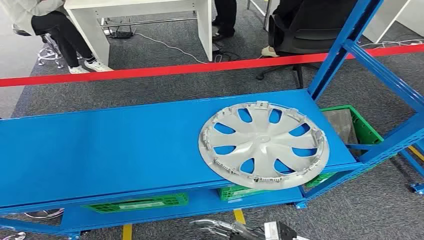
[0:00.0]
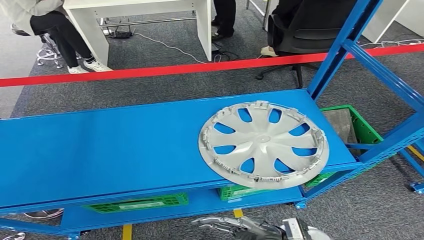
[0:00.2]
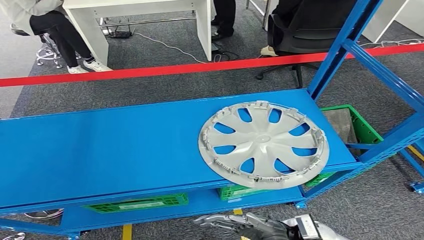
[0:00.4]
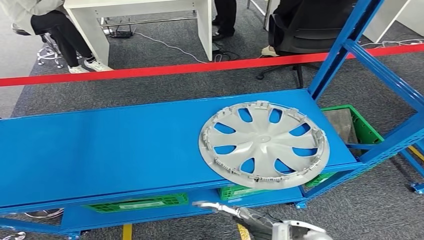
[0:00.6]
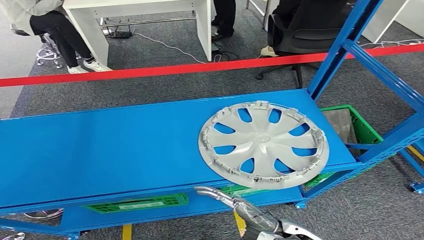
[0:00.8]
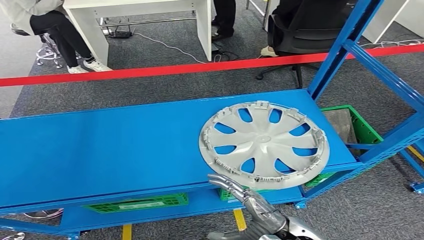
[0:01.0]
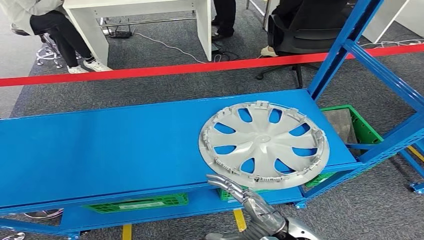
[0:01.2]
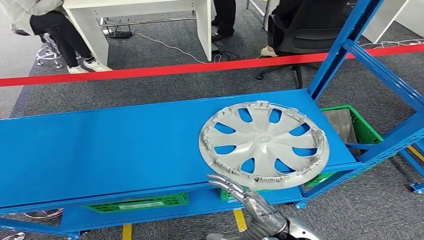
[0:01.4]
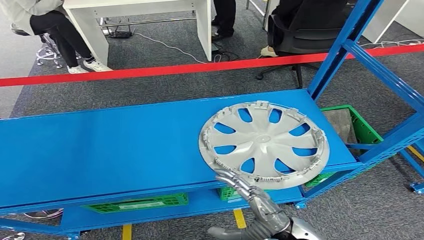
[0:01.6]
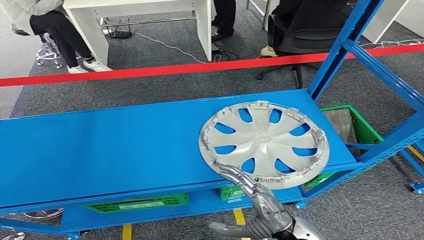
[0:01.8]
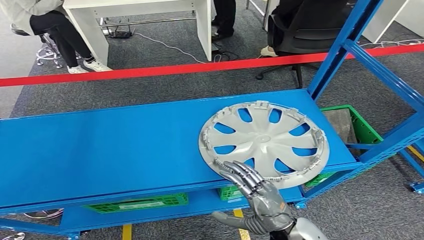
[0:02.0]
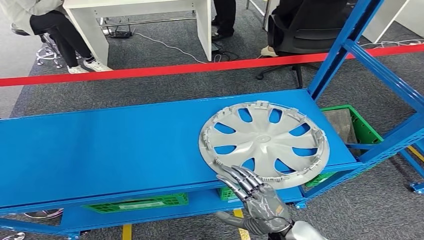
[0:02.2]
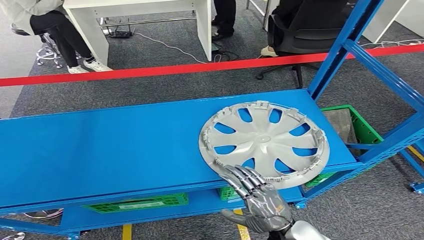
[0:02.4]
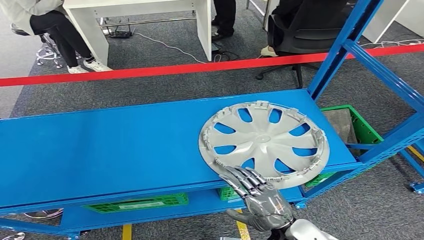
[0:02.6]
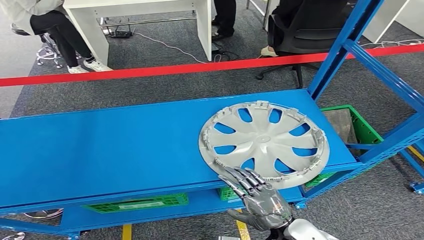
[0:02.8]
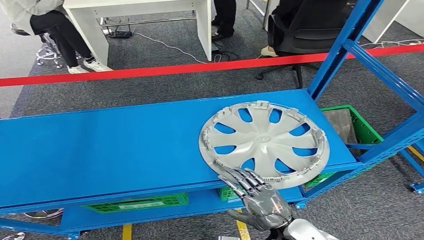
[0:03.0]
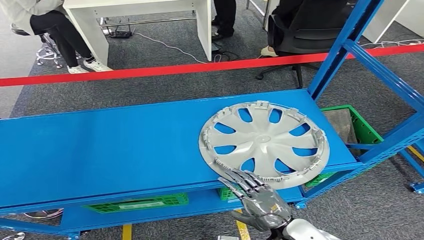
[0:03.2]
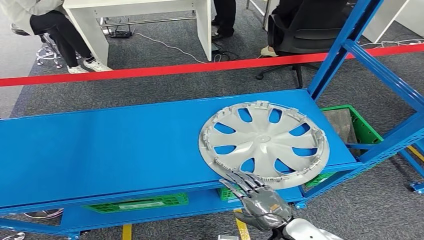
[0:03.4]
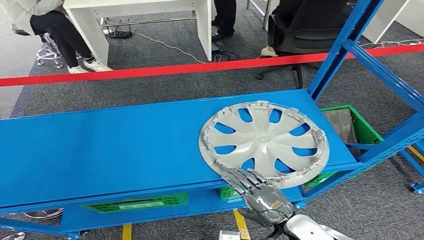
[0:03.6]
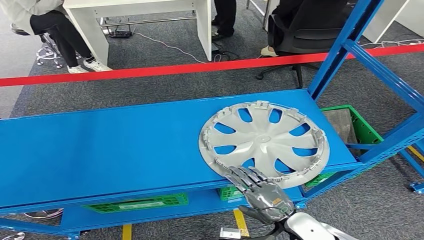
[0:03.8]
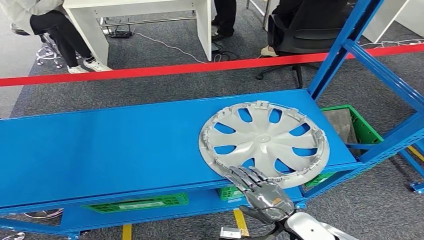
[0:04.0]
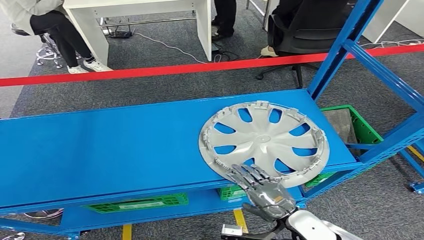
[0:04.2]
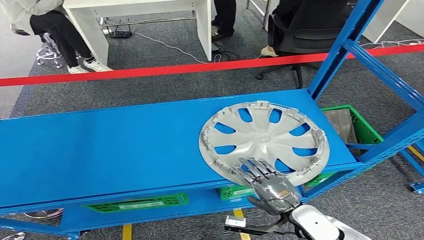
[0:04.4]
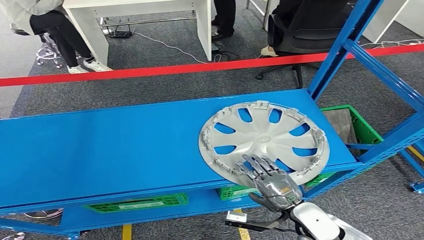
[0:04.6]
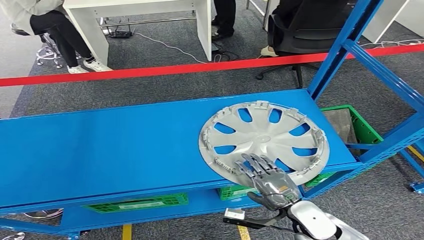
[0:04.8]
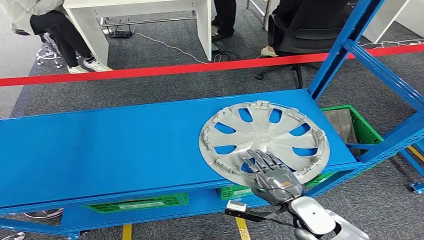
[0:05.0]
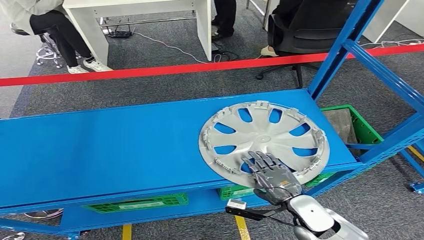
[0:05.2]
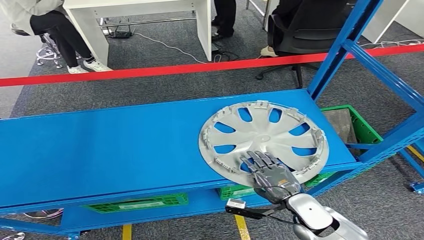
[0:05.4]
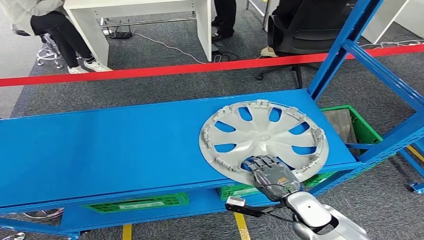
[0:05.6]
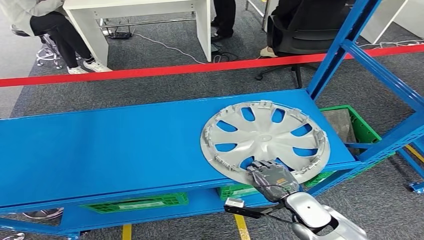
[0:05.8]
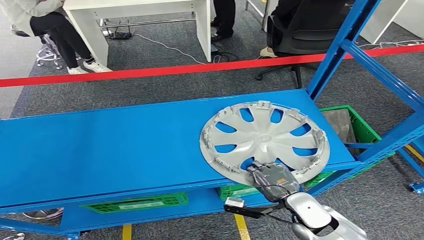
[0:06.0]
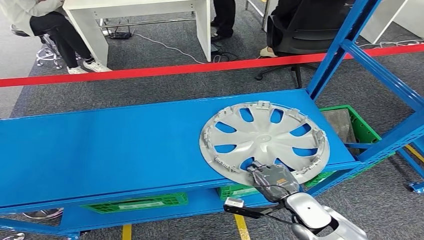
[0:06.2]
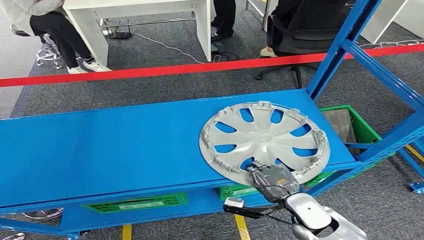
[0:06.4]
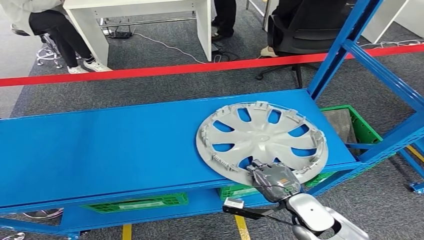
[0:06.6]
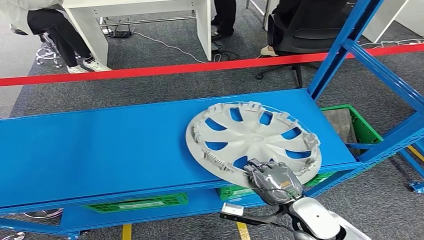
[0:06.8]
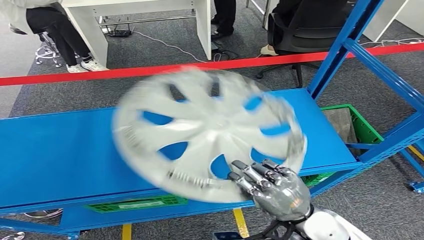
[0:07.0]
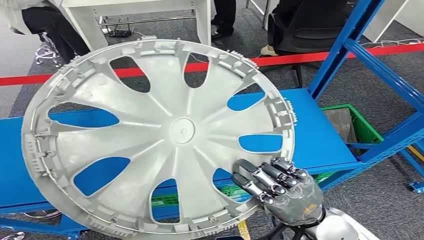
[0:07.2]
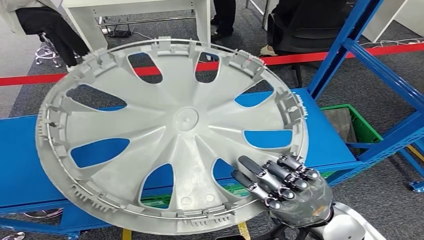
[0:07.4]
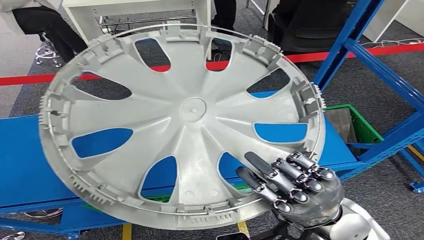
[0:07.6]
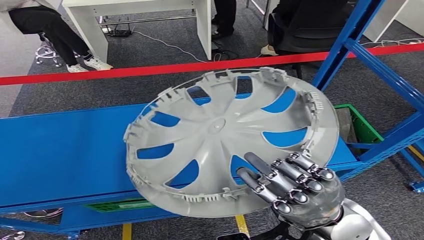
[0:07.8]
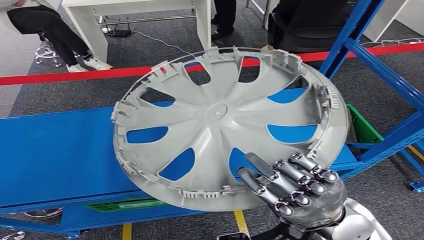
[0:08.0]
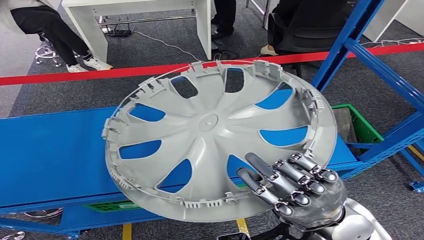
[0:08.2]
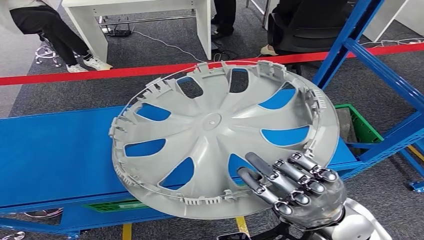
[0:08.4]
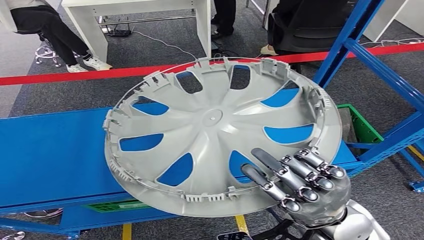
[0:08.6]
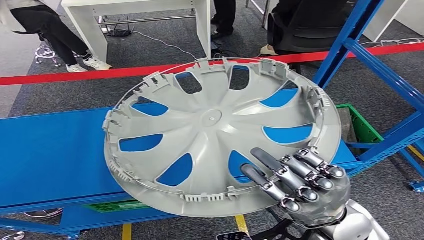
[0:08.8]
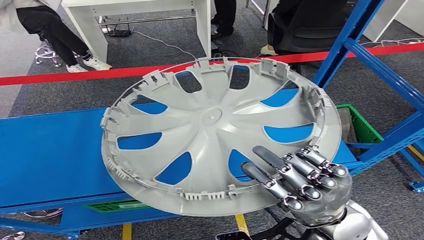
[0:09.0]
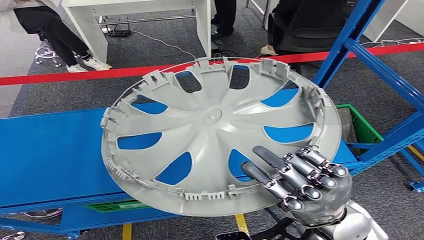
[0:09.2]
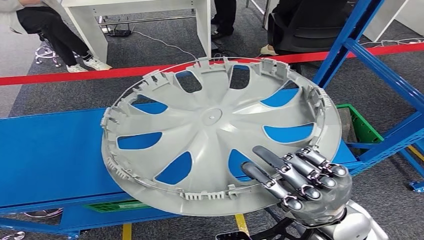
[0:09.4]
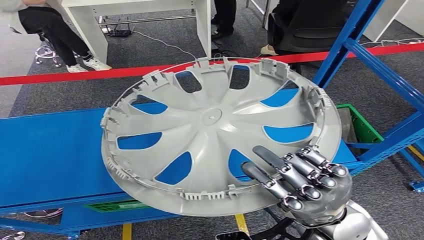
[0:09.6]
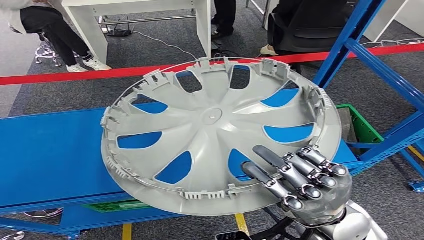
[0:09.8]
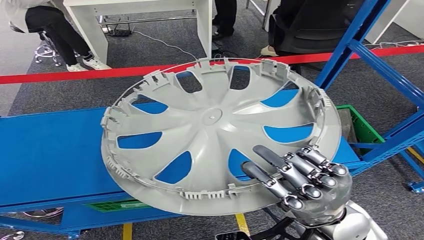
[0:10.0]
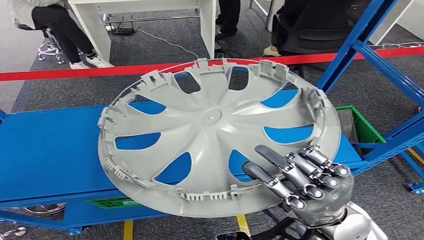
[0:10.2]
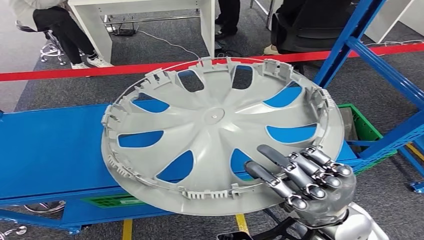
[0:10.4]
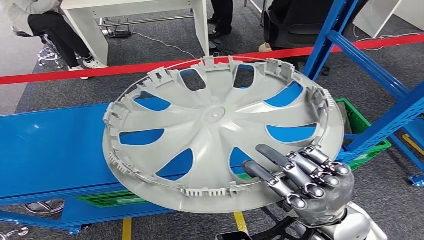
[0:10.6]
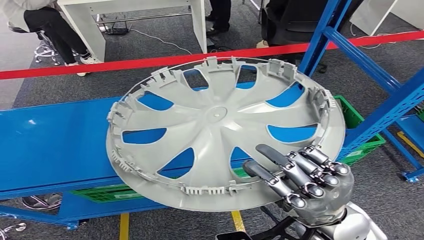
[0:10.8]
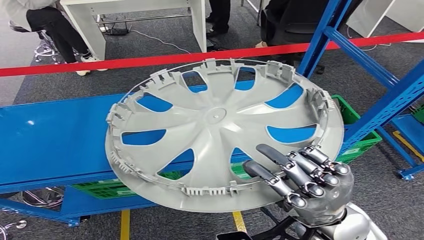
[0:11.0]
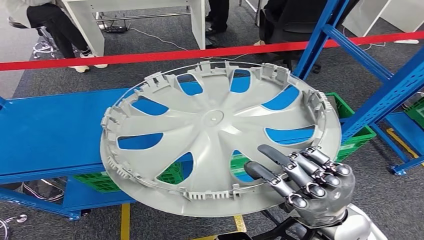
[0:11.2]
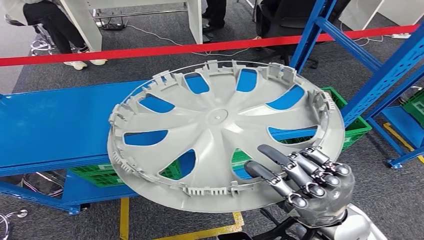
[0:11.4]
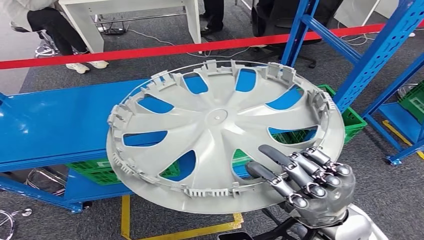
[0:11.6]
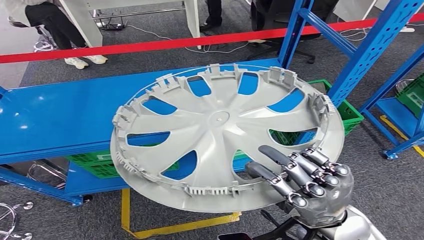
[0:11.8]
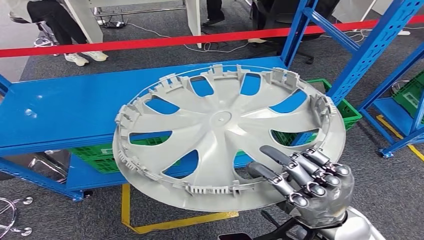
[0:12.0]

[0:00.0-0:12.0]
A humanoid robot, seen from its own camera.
Step, 0:00.0 to 0:11.6: Pick up the small parts from the shelf.
0:03.0 to 0:04.4: The hands stay close to where they were, moving slightly.
0:04.4 to 0:06.0: There are only small adjustments of the hands.
0:09.0 to 0:10.4: Both hands stay about where they are.

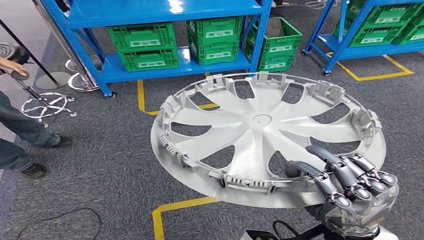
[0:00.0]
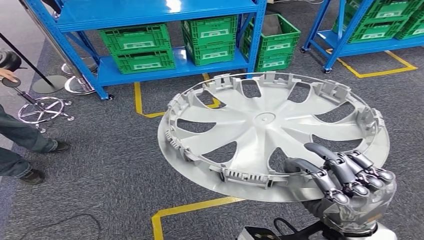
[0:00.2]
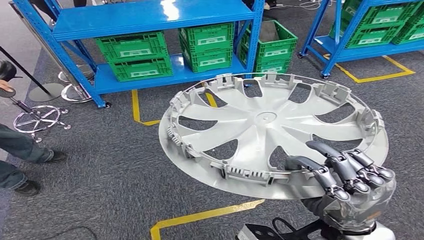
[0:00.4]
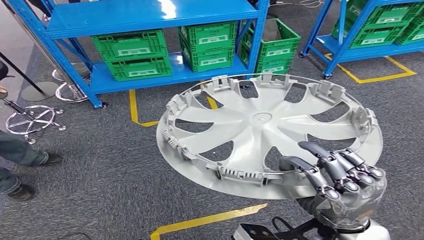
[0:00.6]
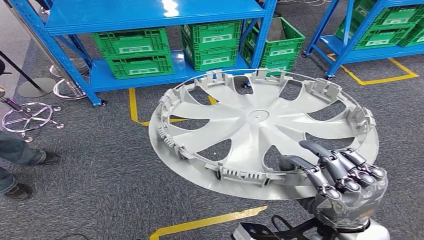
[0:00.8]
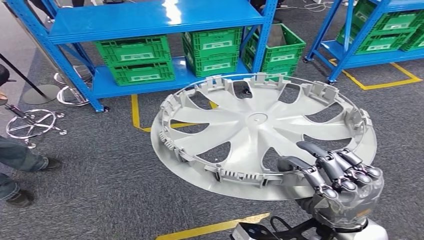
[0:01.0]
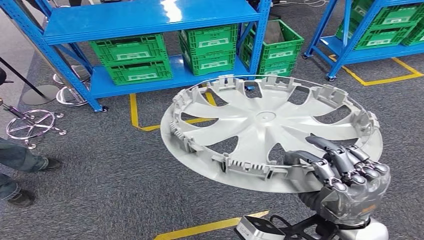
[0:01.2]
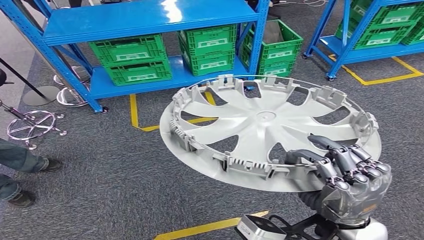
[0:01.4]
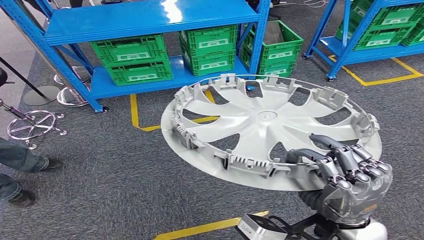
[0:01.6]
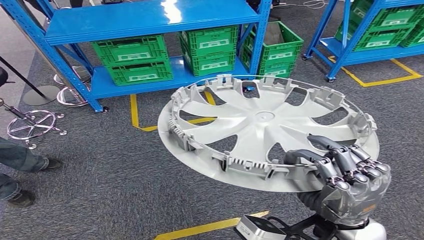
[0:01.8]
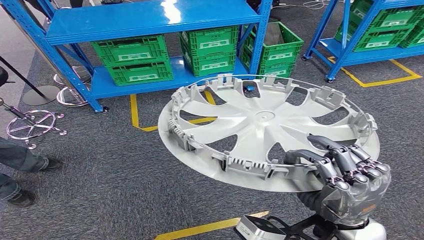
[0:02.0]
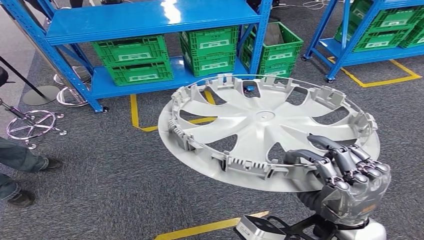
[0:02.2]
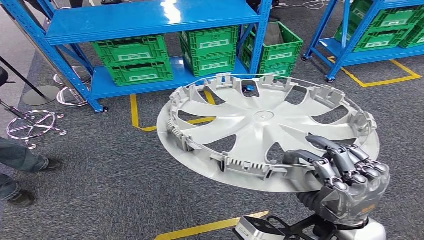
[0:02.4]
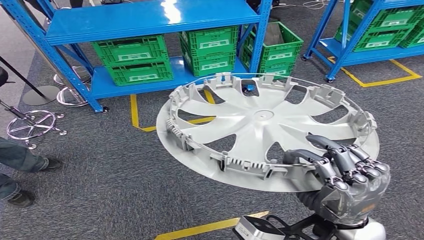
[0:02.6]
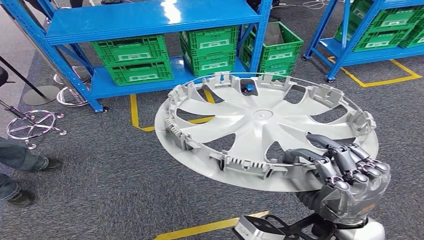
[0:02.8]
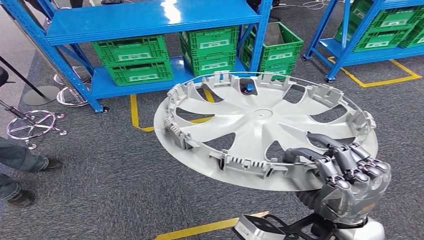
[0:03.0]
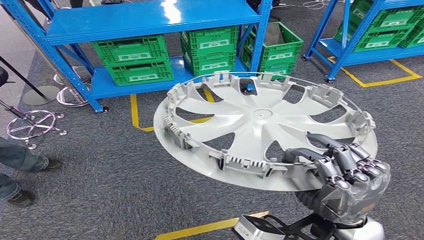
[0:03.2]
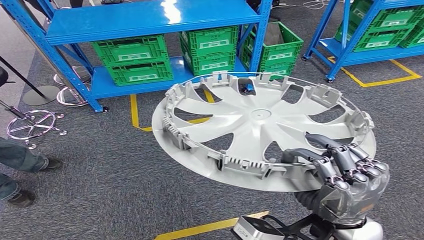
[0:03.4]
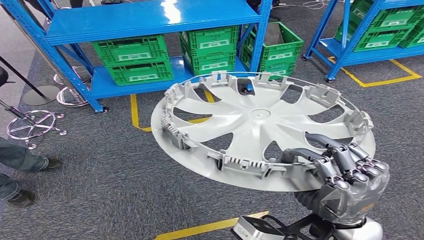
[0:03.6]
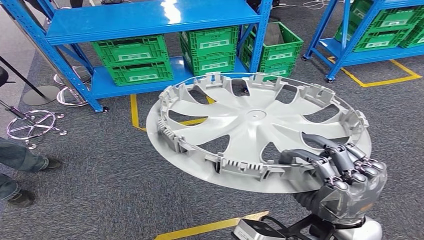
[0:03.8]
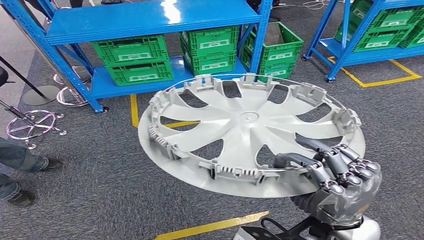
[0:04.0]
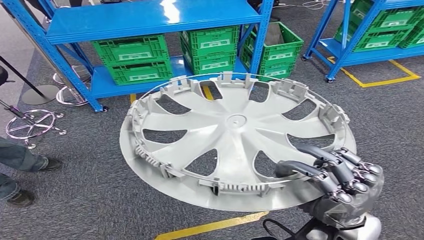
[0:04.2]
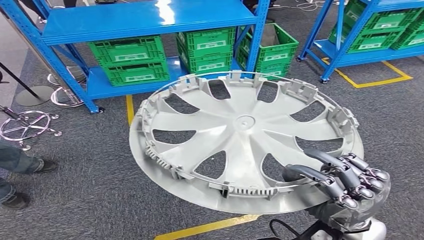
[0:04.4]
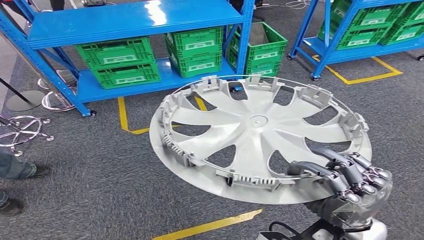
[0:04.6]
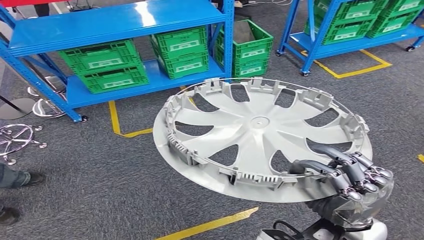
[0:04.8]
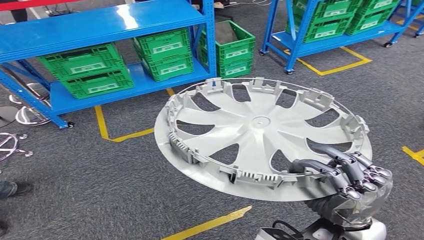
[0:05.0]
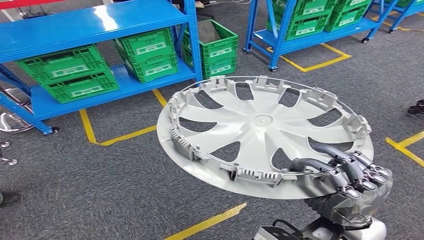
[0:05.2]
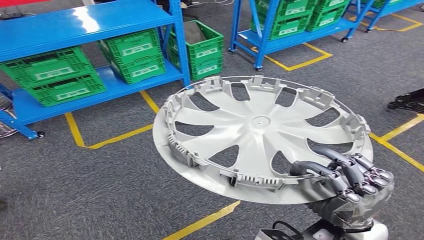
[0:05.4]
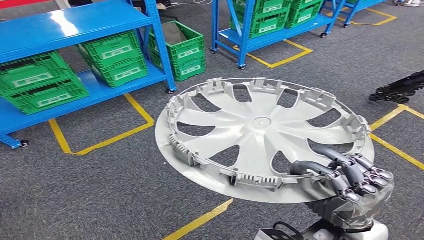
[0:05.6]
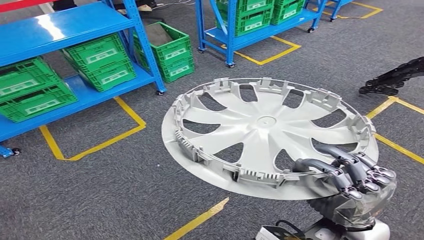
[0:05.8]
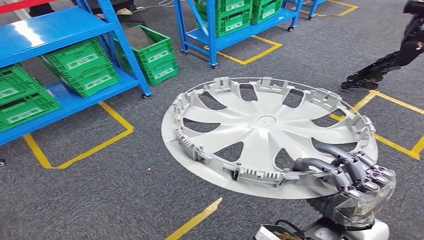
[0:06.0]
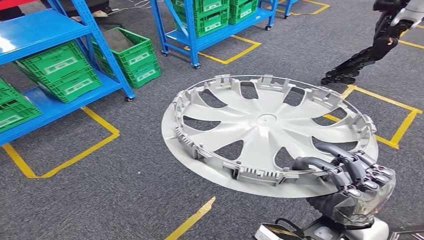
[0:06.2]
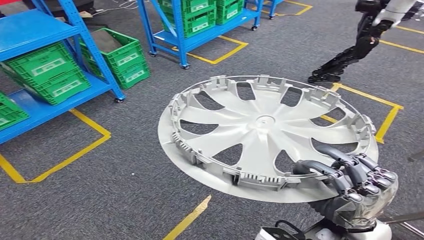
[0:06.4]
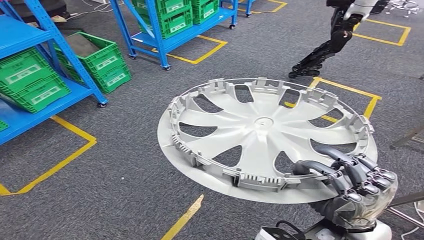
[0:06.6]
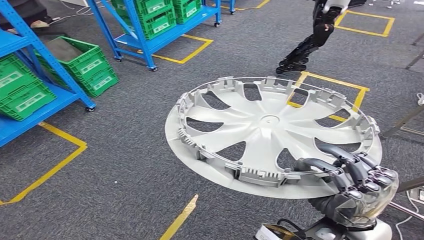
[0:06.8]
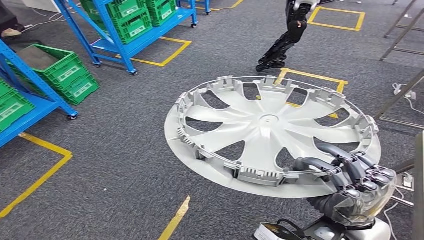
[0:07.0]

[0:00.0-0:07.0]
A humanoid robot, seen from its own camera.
0:01.4 to 0:02.8: Neither hand changes place.
